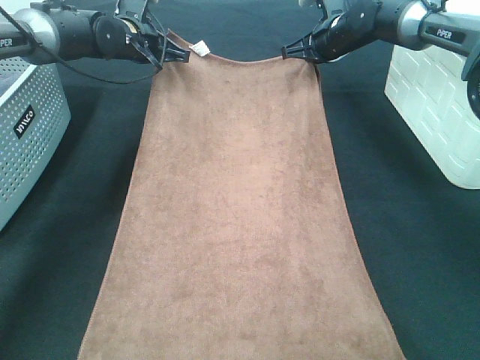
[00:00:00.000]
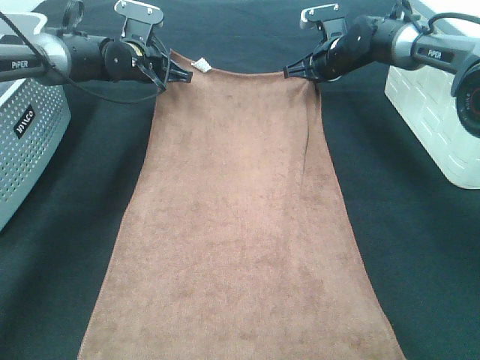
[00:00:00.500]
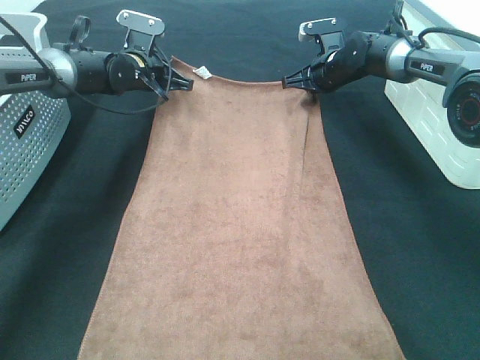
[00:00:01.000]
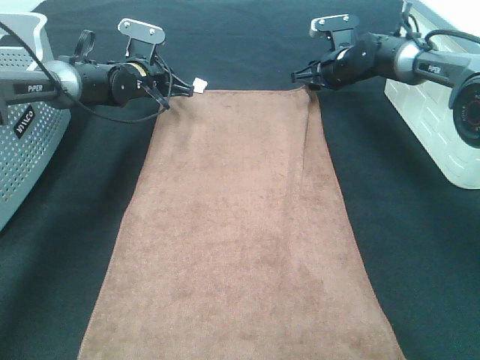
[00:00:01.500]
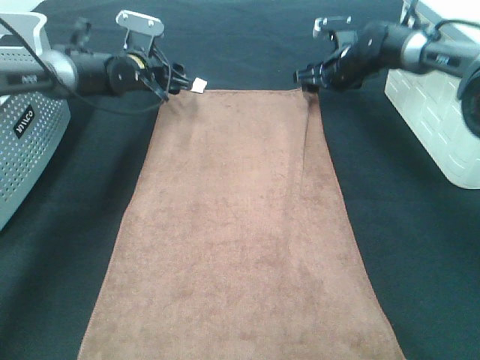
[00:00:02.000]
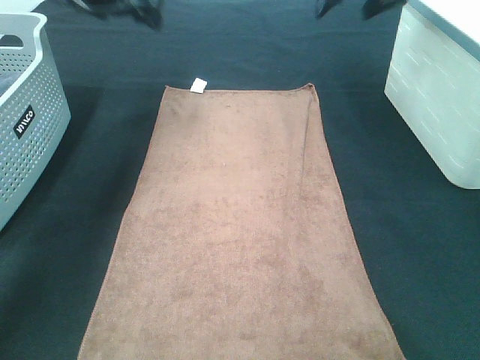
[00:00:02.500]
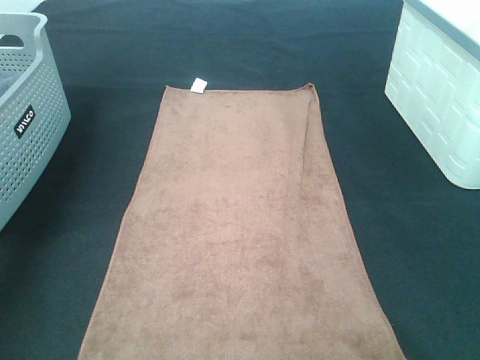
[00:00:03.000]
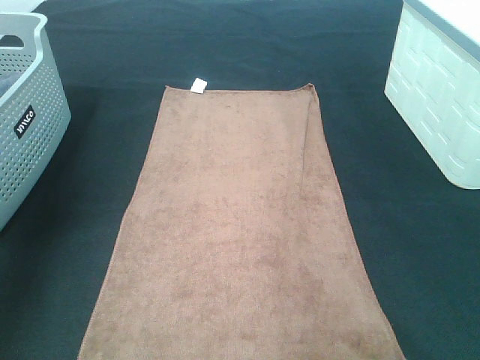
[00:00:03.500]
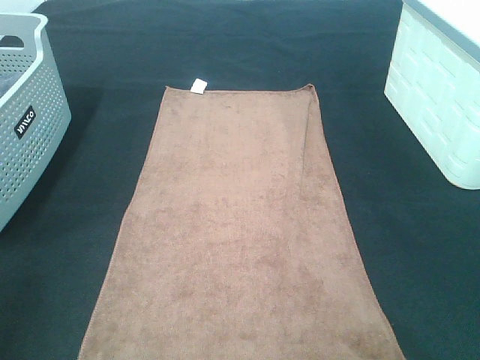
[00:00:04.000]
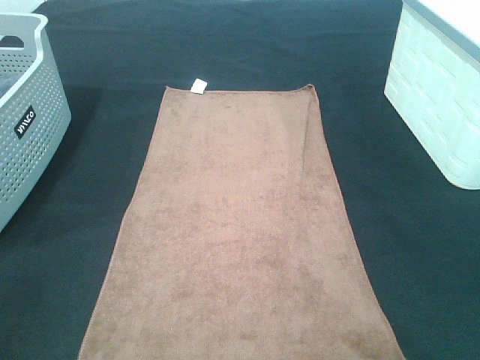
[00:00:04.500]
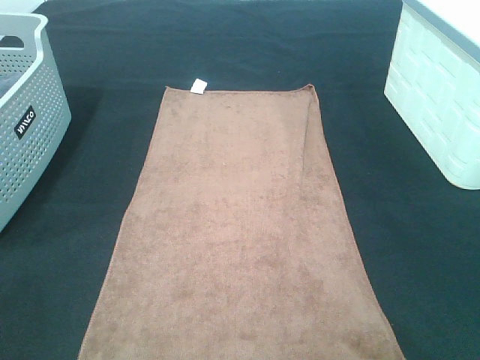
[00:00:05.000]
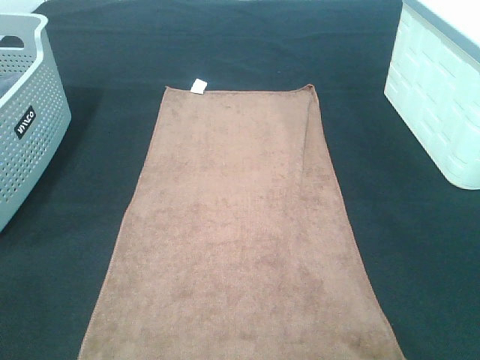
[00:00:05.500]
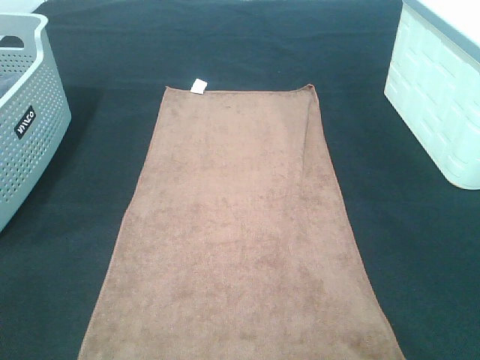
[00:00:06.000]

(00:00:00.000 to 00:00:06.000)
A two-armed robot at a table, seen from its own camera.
Task of the whole recording: Remove the towel and place it.
00:00:00.000 - 00:00:02.000: The right gripper opens. The left gripper opens up.
00:00:02.000 - 00:00:04.000: Both grippers move backward and upward, roughly 60 cm.

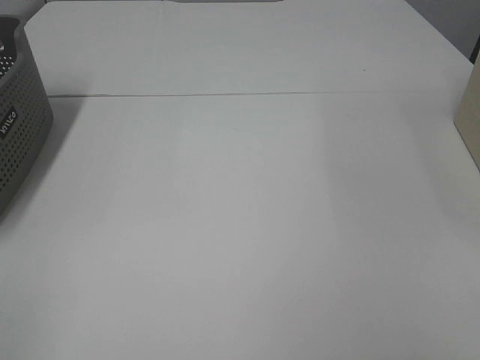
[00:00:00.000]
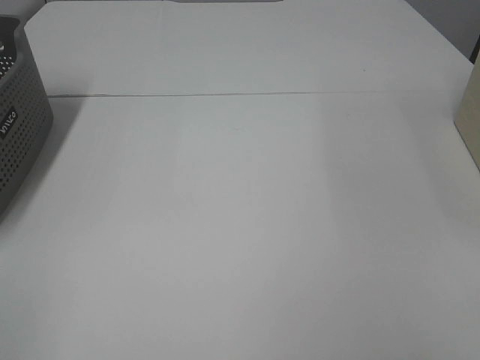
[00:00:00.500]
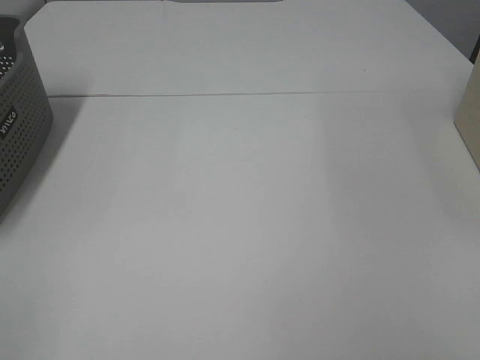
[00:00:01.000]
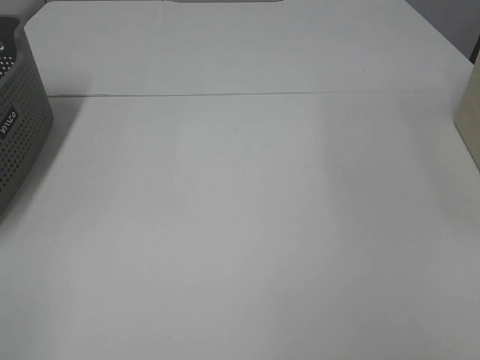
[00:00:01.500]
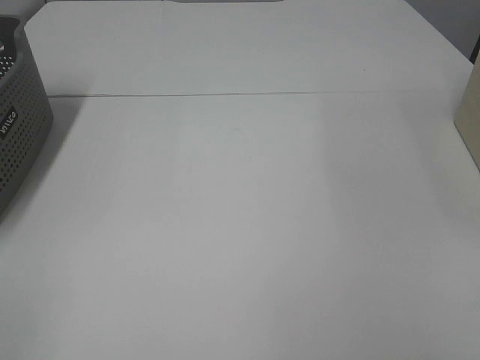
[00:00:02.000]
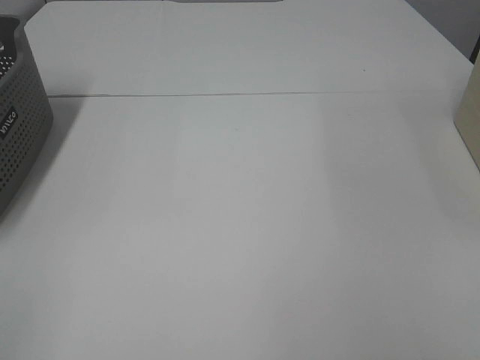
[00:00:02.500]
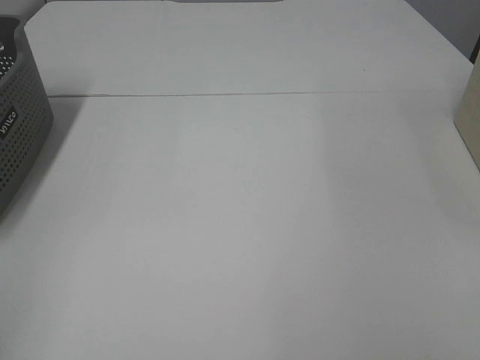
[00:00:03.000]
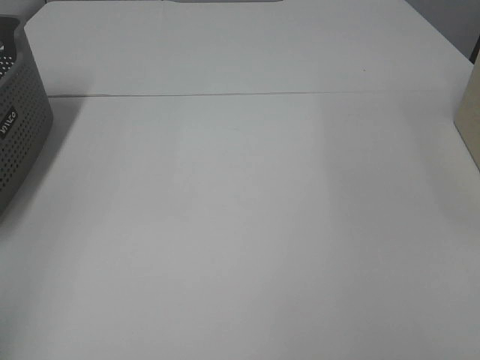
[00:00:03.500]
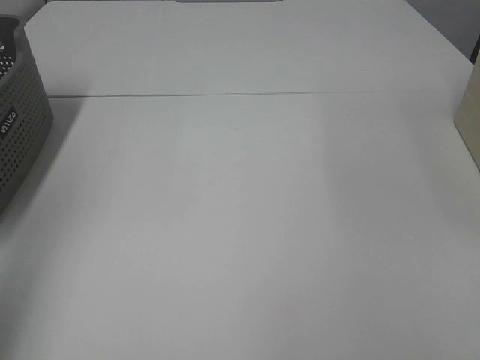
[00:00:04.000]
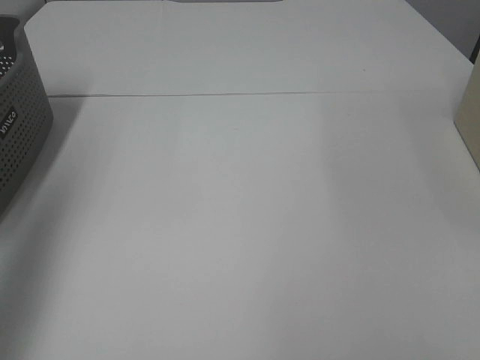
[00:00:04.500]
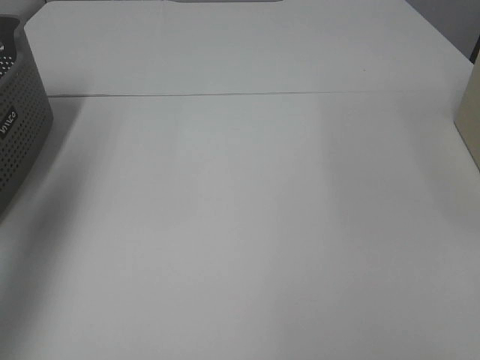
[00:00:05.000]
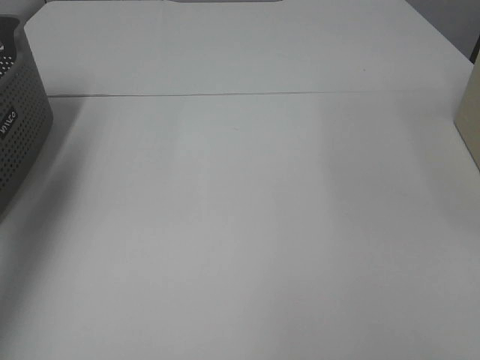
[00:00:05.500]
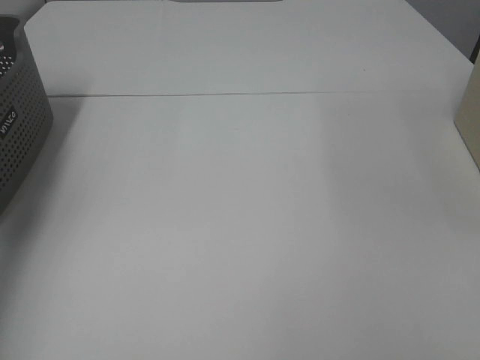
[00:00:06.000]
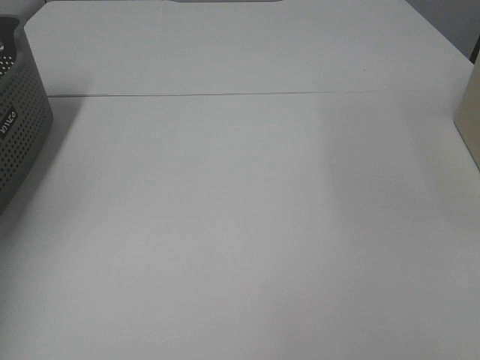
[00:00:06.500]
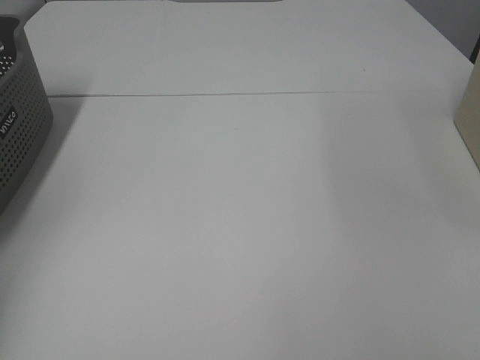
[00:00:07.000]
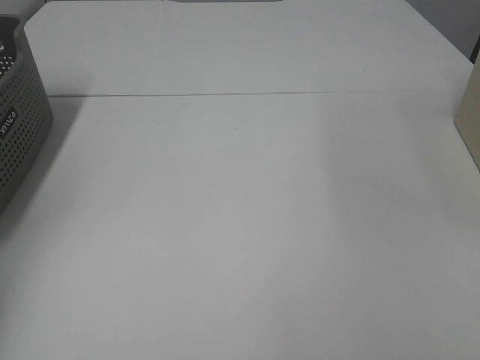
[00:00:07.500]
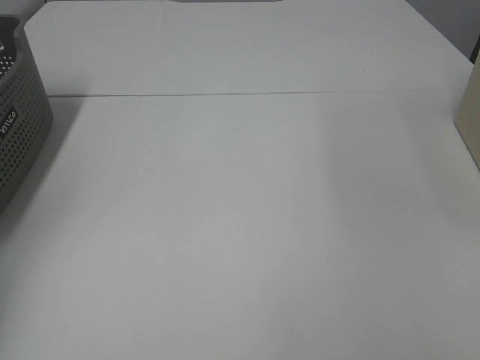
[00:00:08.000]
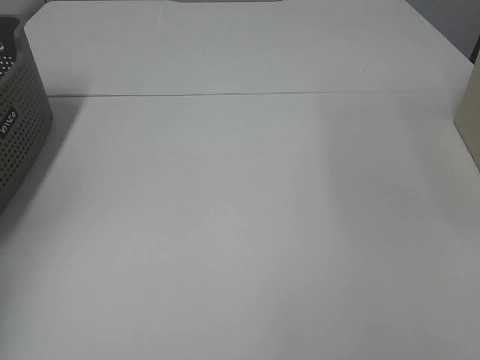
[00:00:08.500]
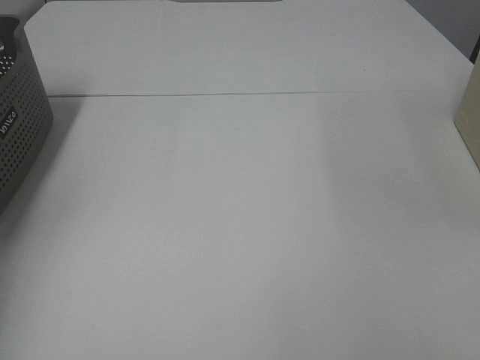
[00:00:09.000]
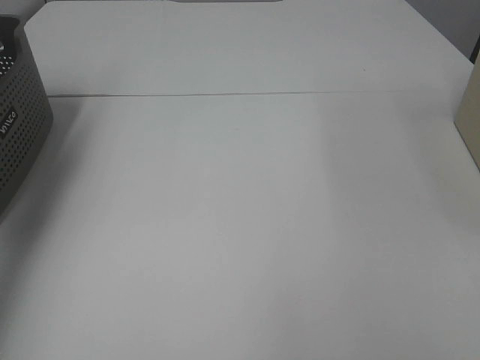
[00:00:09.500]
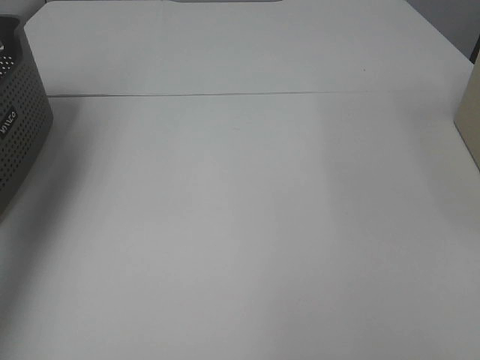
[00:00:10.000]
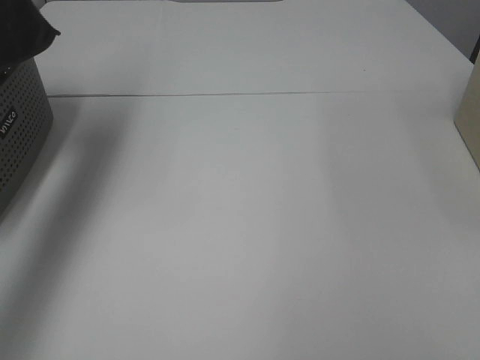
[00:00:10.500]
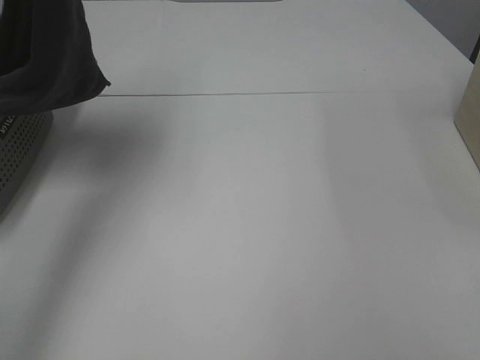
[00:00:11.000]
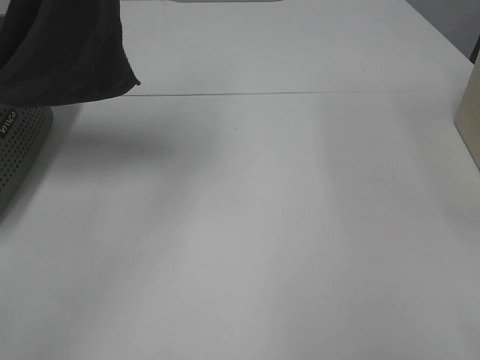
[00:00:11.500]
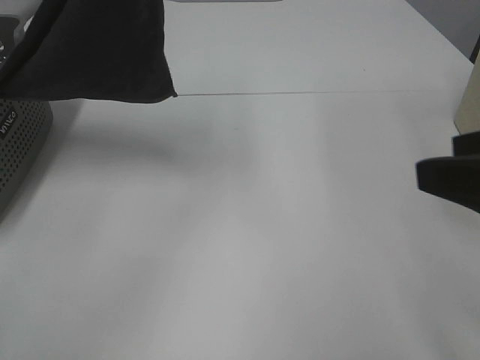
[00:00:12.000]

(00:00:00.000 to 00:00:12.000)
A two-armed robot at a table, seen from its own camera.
Task of the whole recording: Remove the towel and place it.
00:00:00.000 - 00:00:02.000: The two grippers keep their place.
00:00:02.000 - 00:00:04.000: The left gripper travels forward and upward by some 15 cm.
00:00:04.000 - 00:00:06.000: The left gripper is displaced forward by approximately 25 cm.
00:00:06.000 - 00:00:08.000: The left gripper ends up approximately 5 cm from where it was, and closes.
00:00:08.000 - 00:00:10.000: The left gripper travels upward by some 20 cm.
00:00:10.000 - 00:00:12.000: The left gripper goes some 20 cm to the right. The right gripper goes roughly 15 cm forward and to the left.

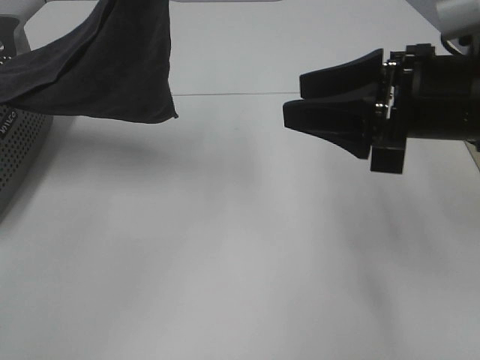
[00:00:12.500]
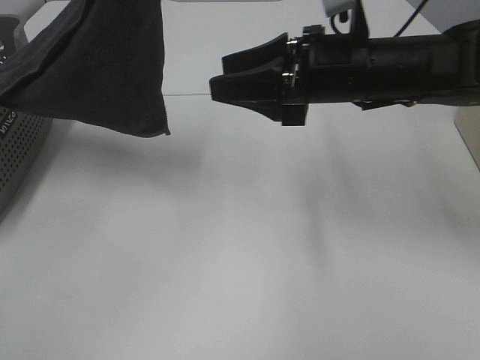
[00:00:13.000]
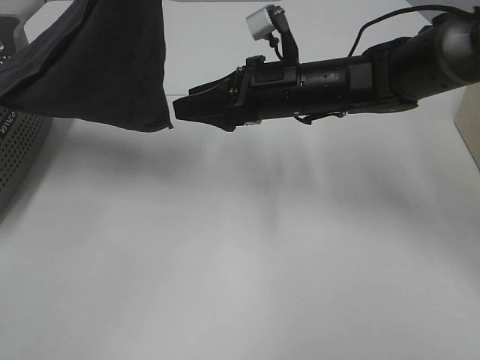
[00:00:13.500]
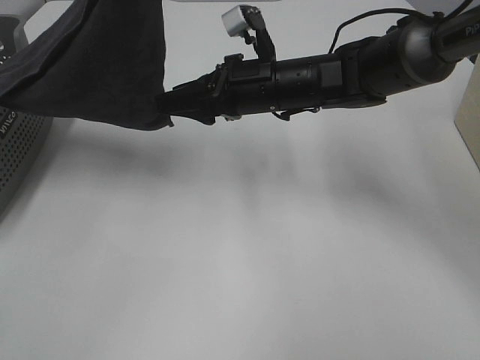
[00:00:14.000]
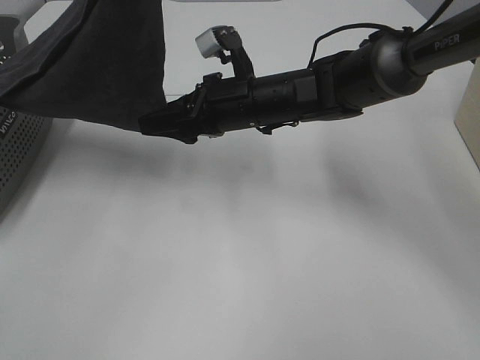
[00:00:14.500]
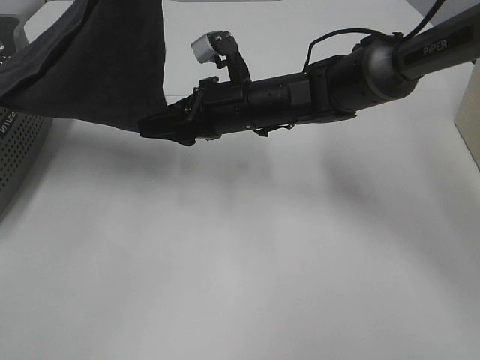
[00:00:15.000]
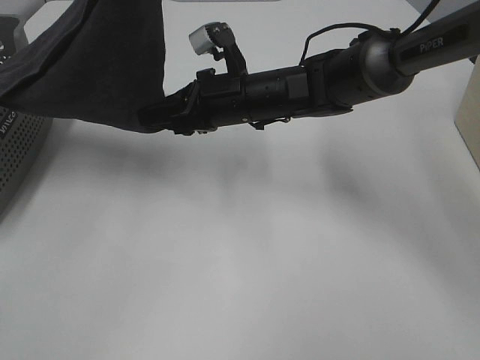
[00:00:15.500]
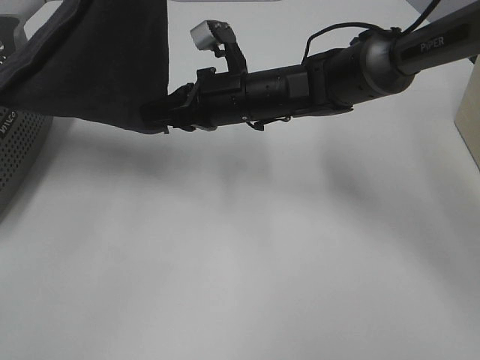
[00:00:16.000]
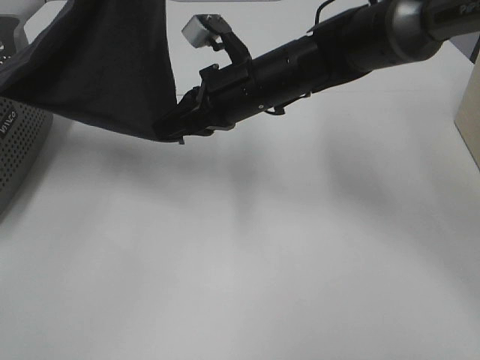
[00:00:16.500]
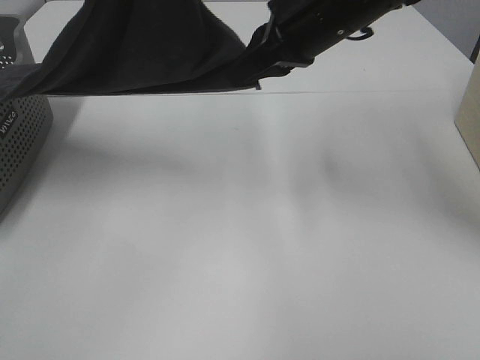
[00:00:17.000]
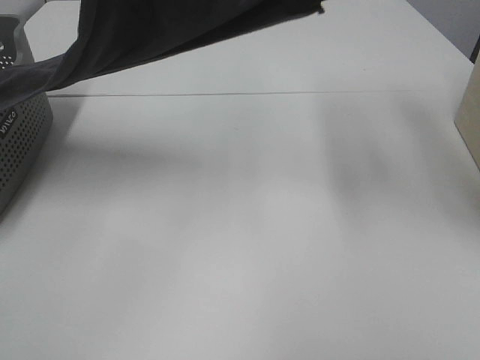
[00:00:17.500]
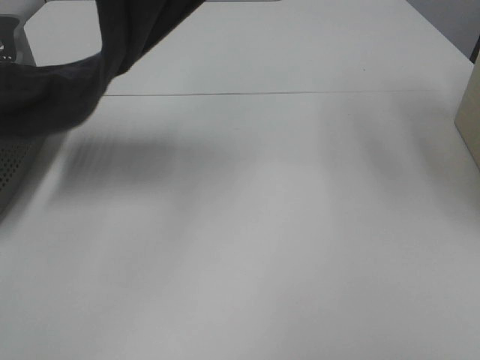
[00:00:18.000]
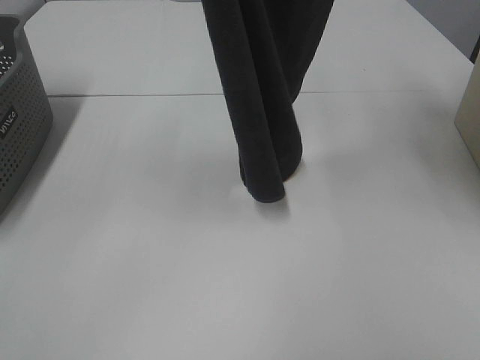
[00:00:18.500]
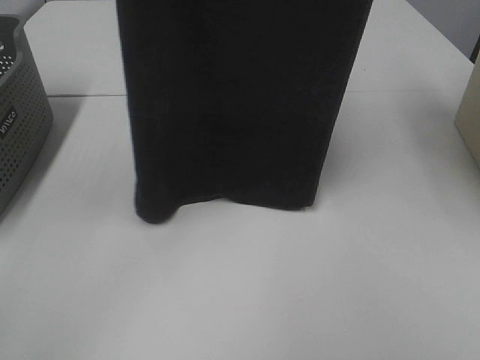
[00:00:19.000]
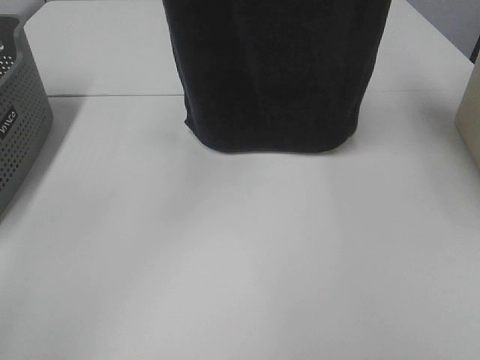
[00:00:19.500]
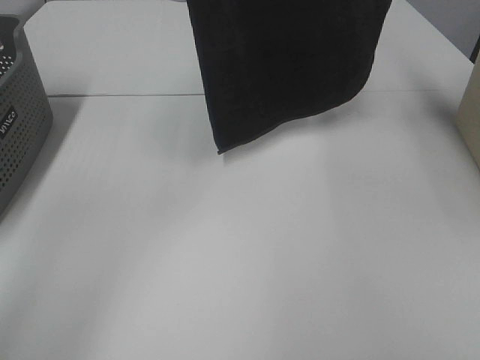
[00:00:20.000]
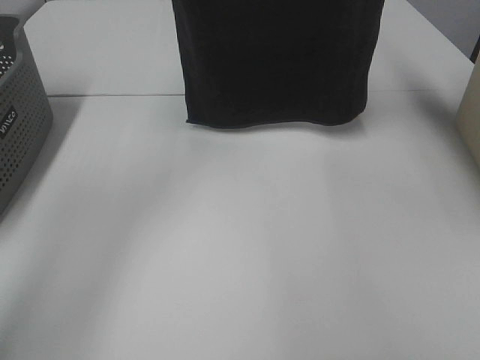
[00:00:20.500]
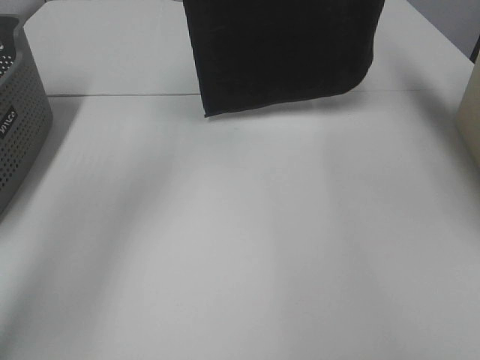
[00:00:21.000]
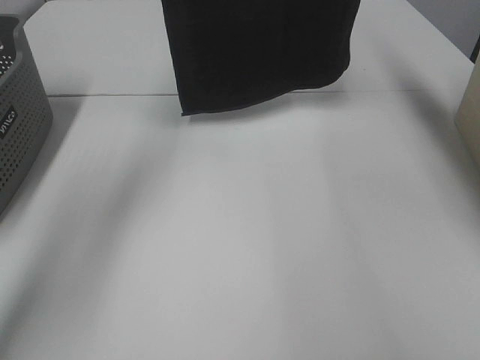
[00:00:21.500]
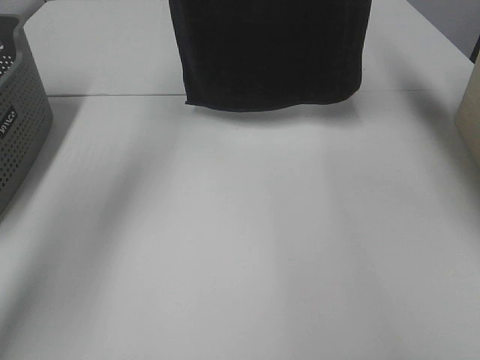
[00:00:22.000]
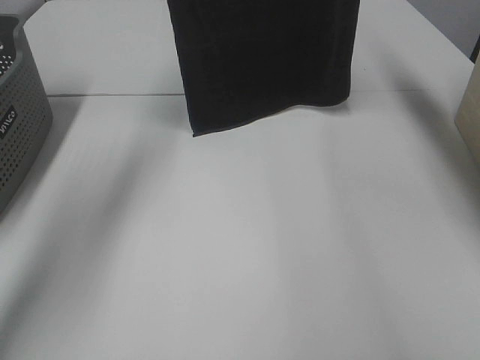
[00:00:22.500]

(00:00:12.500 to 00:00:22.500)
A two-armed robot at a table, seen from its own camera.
Task of the whole recording: Remove the towel and place it.
Step, 00:00:12.500 - 00:00:15.500: Right hand: grab a corner of the grey towel and straighten it.
00:00:12.500 - 00:00:14.500: The right gripper travels to the left, forward and downward by some 20 cm.
00:00:14.500 - 00:00:16.500: The right gripper closes up.
00:00:16.500 - 00:00:18.500: The left gripper shifts roughly 10 cm upward, while the right gripper travels upward by roughly 35 cm.
00:00:18.500 - 00:00:20.500: The right gripper heads forward, covering about 10 cm. Meanwhile the left gripper heads forward, covering some 15 cm.
00:00:20.500 - 00:00:22.500: The grippers both shift forward by roughly 5 cm.
